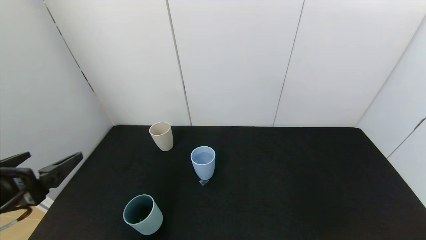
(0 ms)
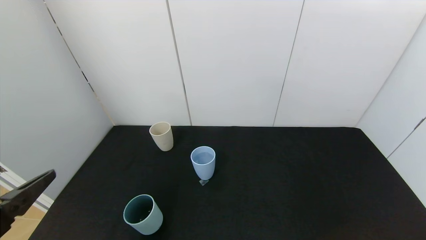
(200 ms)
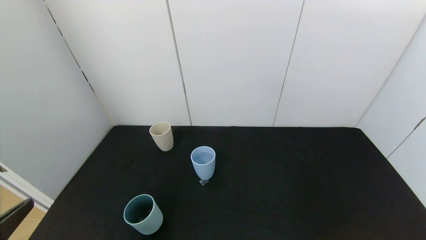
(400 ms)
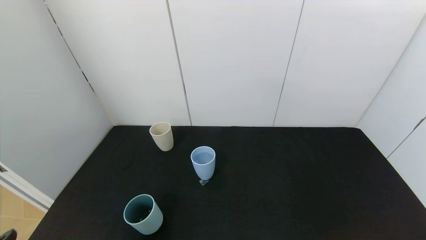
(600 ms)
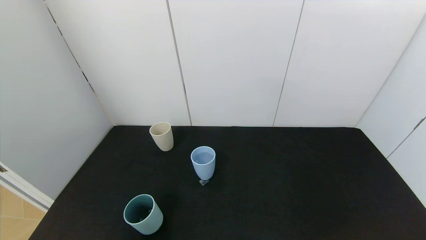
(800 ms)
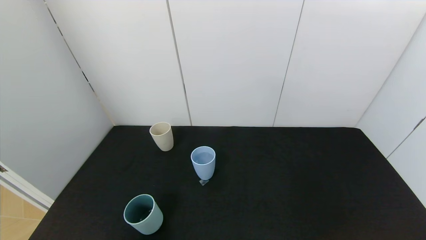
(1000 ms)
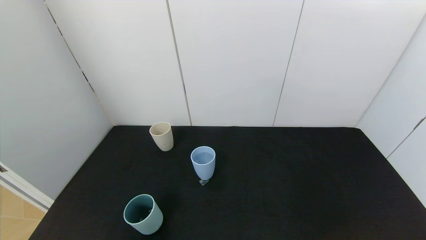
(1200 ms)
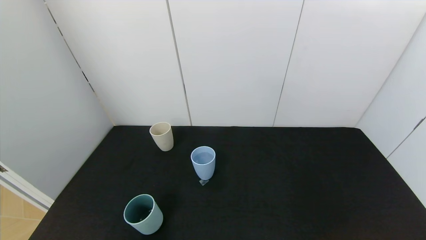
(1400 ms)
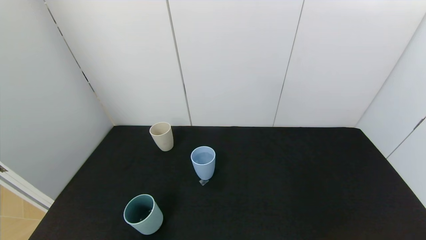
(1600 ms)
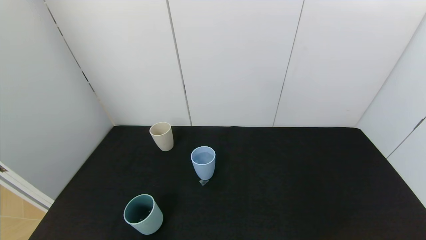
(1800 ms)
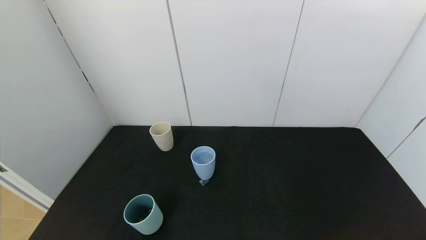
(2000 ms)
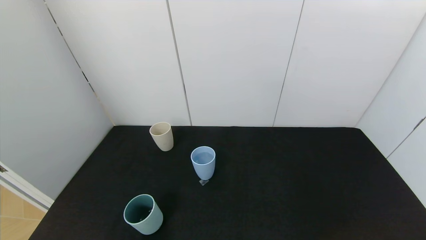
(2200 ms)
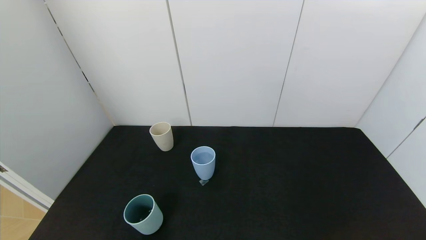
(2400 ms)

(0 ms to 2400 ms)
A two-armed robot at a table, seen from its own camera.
Task of the whole recording: use the gripper to pour the water into the other two cups on black table.
0 ms - 1200 ms: The left gripper goes some 15 cm backward and downward.
